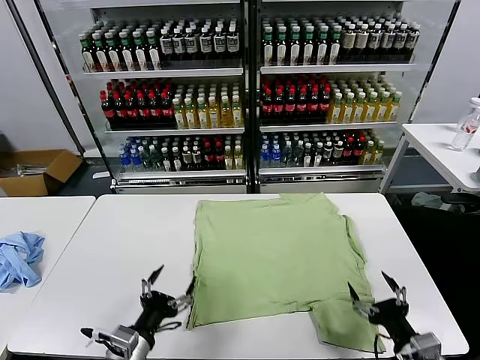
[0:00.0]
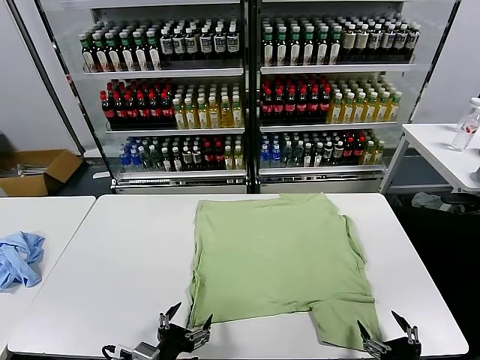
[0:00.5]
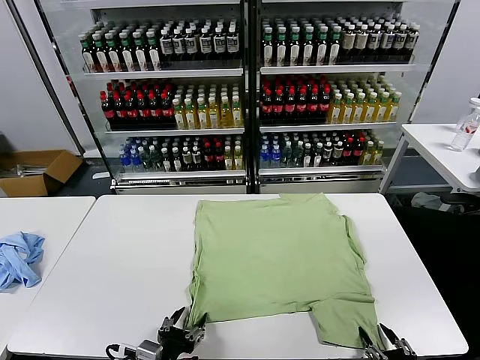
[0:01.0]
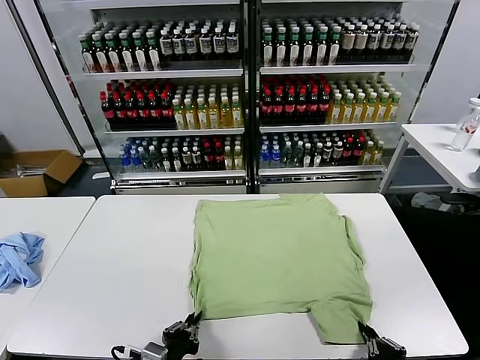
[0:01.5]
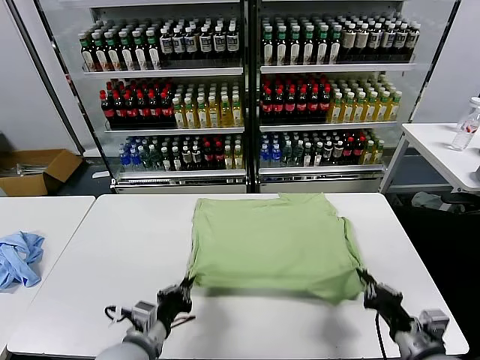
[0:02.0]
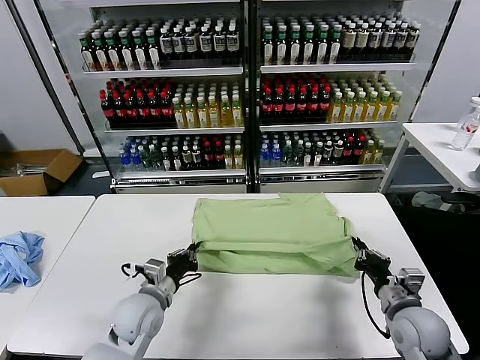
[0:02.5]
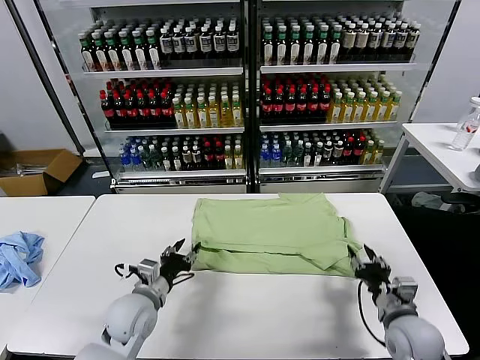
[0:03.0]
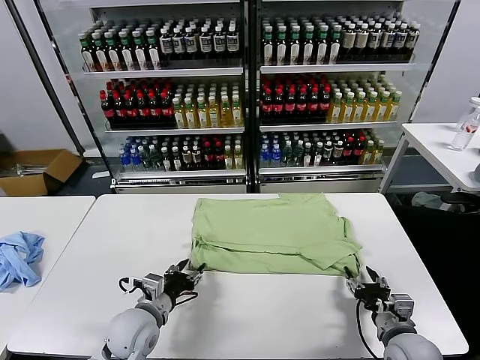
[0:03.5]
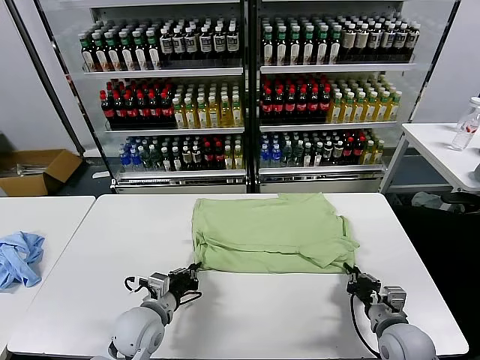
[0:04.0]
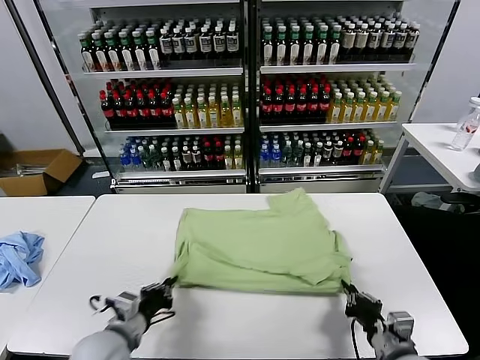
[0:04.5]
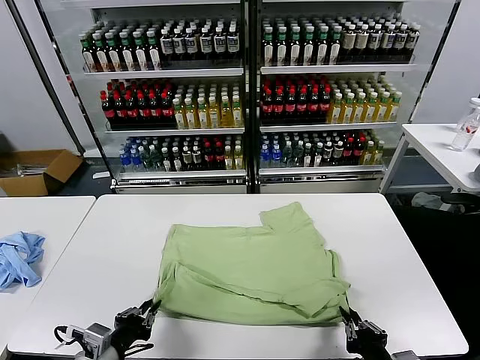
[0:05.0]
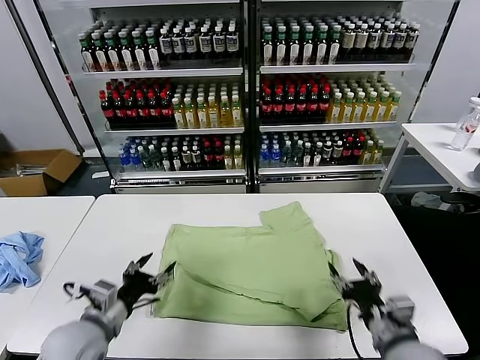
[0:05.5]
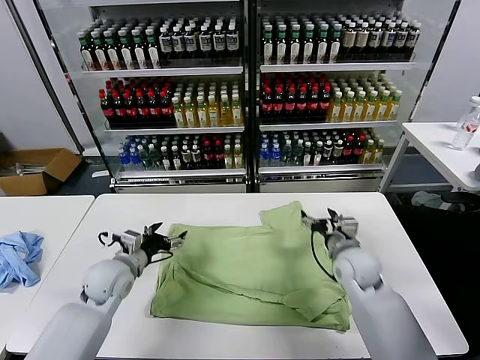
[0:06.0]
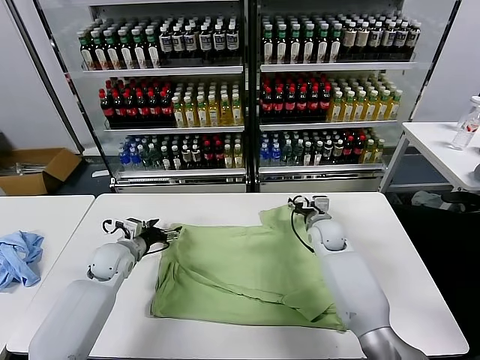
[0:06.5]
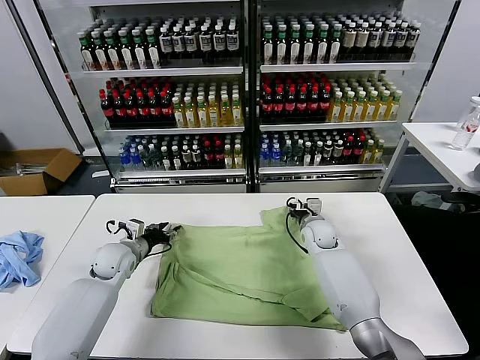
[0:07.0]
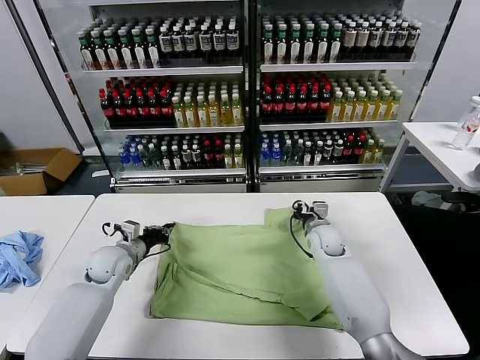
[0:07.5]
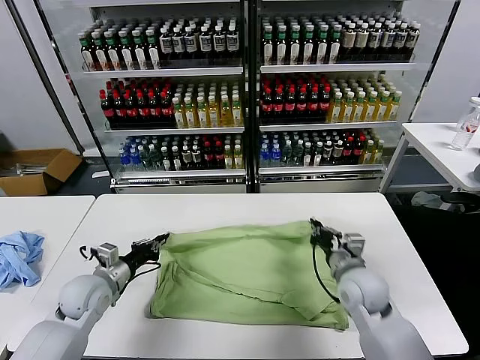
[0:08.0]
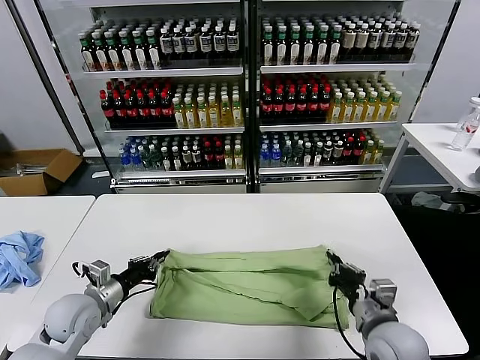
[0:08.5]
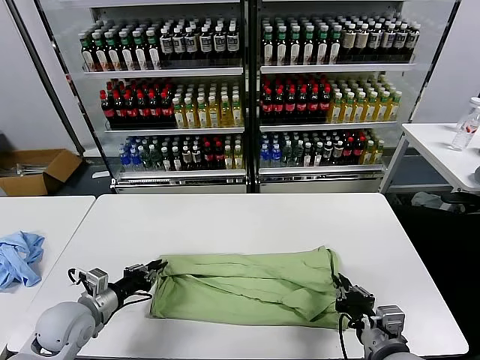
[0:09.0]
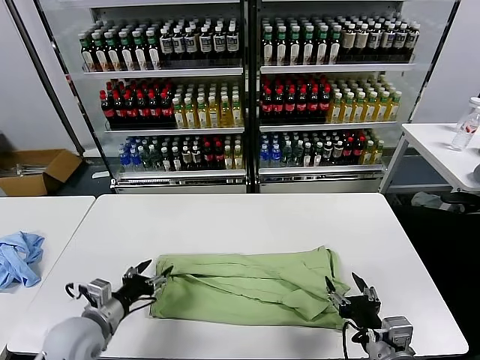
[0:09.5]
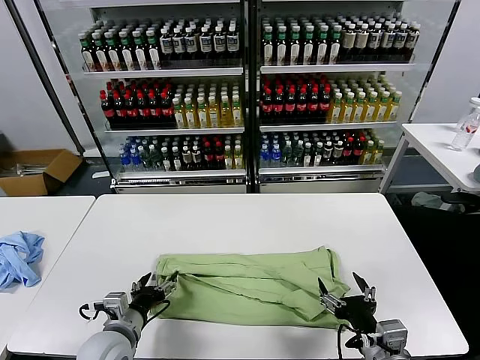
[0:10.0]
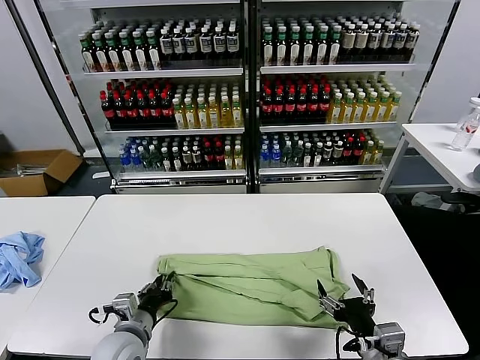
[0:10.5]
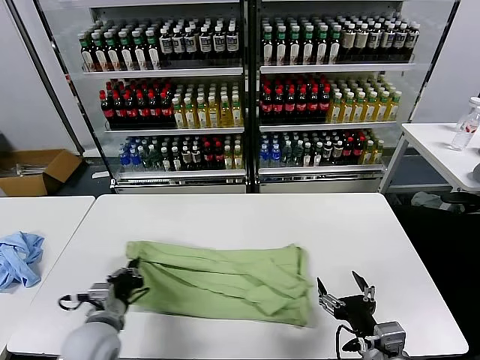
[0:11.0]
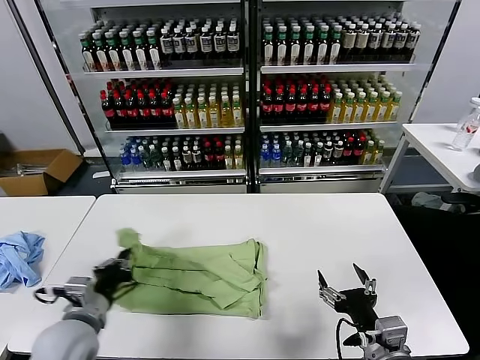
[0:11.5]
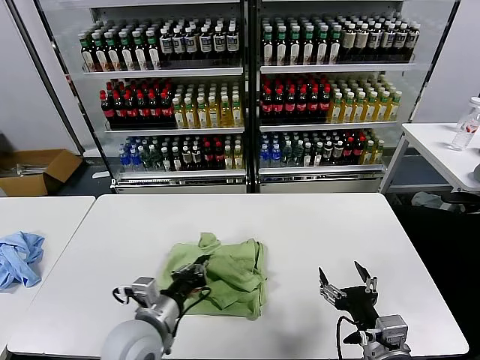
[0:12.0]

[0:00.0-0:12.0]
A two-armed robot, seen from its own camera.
Task of the whole recording: fold and organize the clothes.
Step, 0:00.0 to 0:01.5: use both grippers simultaneously to clamp the lower edge of the clothing fabric.
Step, 0:02.0 to 0:02.5: use both grippers to drag the lower edge of the fabric forward and fold it over the upper edge.
Step, 0:03.0 to 0:05.0: Drag the clothes downward with both gripper.
Step, 0:05.5 to 0:07.0: use both grippers simultaneously to clamp the upper edge of the clothing fabric.
Step, 0:07.5 to 0:09.0: use both grippers to drag the upper edge of the fabric backward and fold it over the lower edge.
Step, 0:09.5 to 0:10.5: use the left gripper to clamp the left edge of the fabric.
0:02.0 to 0:04.0: The left gripper shifts about 5 cm forward, and opens, then closes once more. The right gripper travels downward by approximately 5 cm, and opens, then closes again.
0:04.0 to 0:06.0: The right gripper goes approximately 20 cm forward and to the left, and opens its fingers. The left gripper moves forward and to the left, approximately 15 cm, and opens up.
0:06.0 to 0:08.0: The left gripper moves approximately 5 cm, and closes its fingers, while the right gripper heads backward, covering roughly 15 cm, and closes its fingers.
0:08.0 to 0:10.0: The right gripper moves backward, some 15 cm, and opens its fingers; the left gripper moves backward and to the right, some 15 cm, and opens.
0:10.0 to 0:12.0: The left gripper moves to the right and upward, some 10 cm, and closes its fingers.

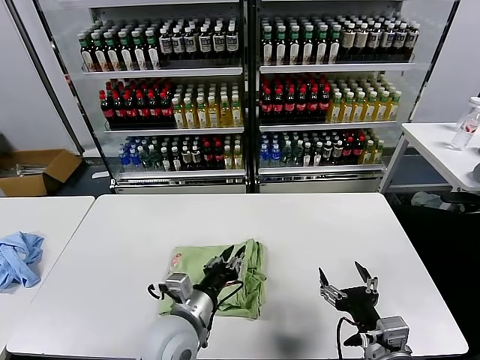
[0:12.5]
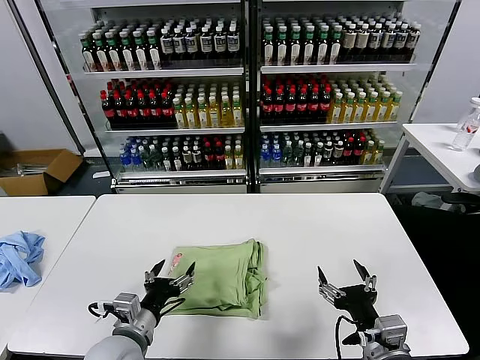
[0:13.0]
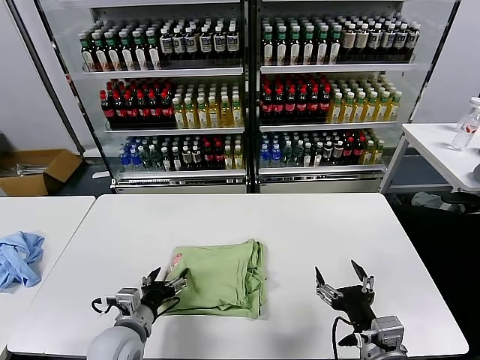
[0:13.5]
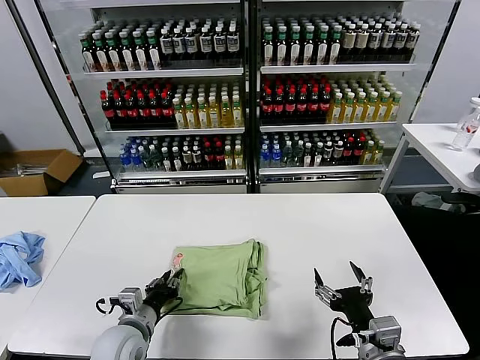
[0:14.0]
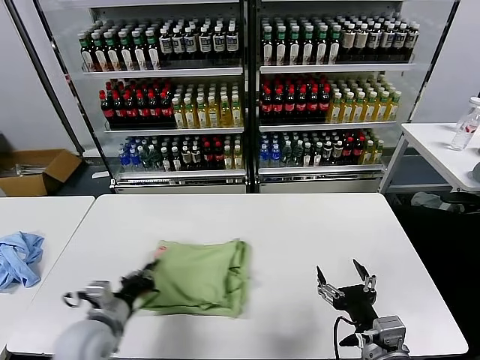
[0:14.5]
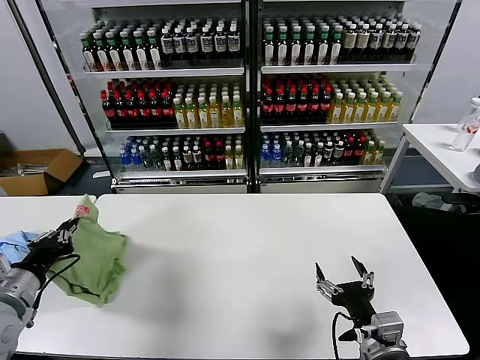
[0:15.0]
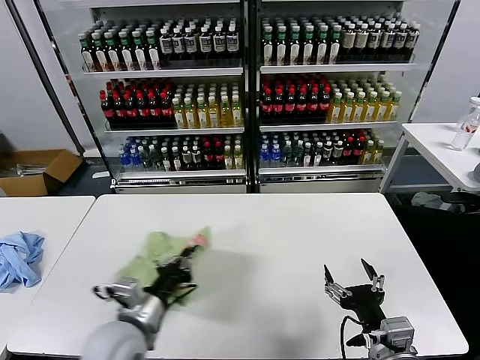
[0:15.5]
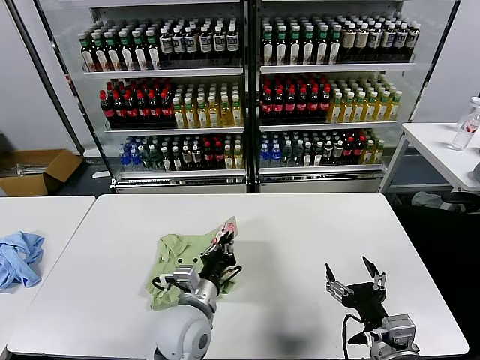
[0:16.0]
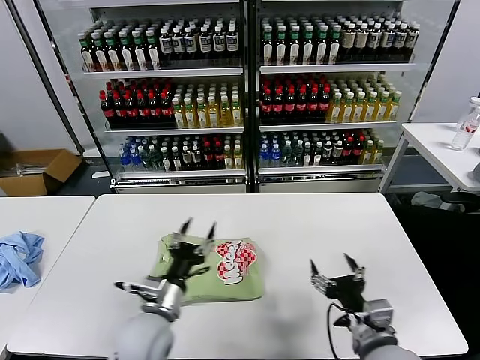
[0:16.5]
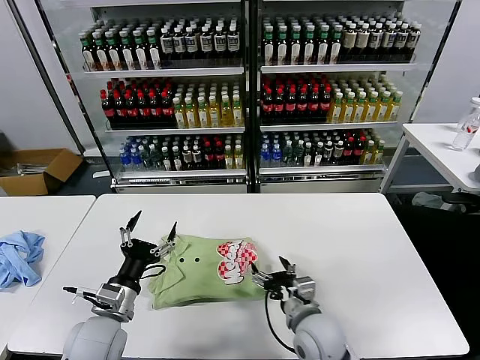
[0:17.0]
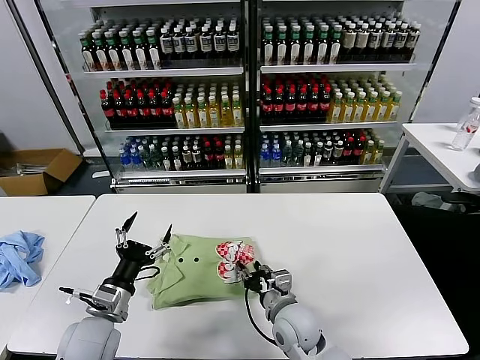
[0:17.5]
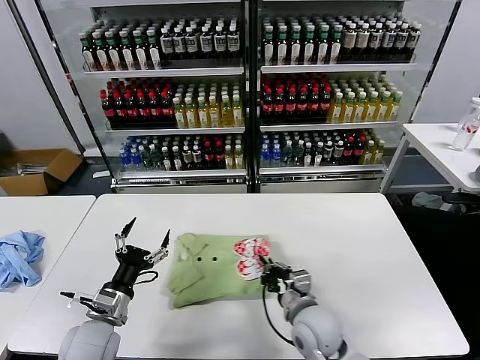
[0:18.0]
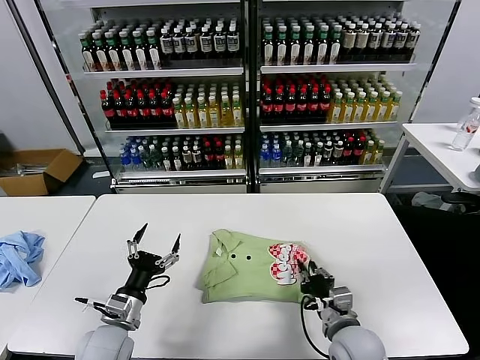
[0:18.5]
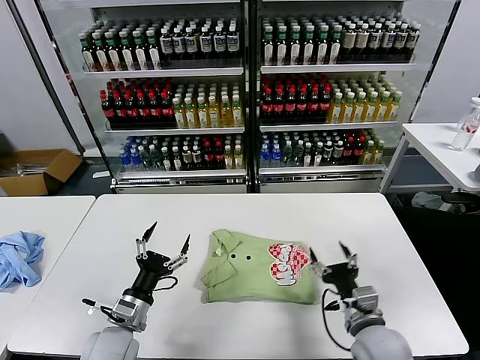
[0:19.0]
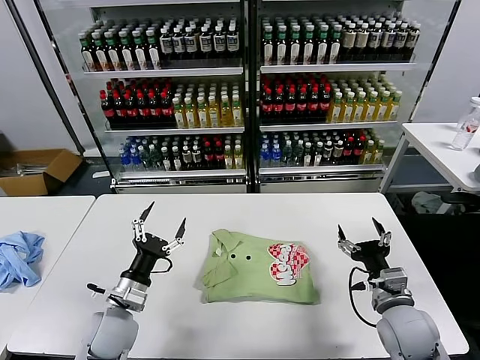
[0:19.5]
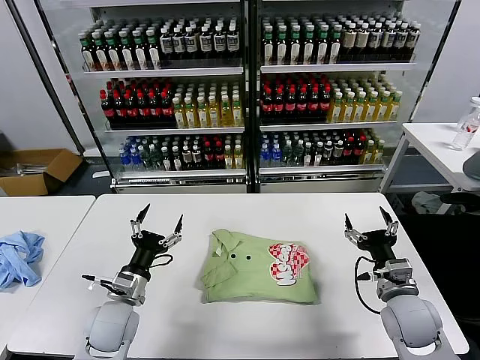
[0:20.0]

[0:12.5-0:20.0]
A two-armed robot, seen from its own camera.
Task of the whole recording: fold and organize the clothes.
Step, 0:13.0 to 0:16.0: Flip the folded clothes over with left gripper.
Step, 0:16.5 to 0:18.5: Drag the clothes to the center of the table.
0:12.5 to 0:14.5: The left gripper goes roughly 15 cm to the left, and closes its fingers.
0:14.5 to 0:16.5: The left gripper swings left and right, roughly 30 cm each way, with 2 reversals, and opens.
0:16.5 to 0:18.0: The left gripper moves to the left, about 10 cm, while the right gripper is displaced to the left, forward and downward by some 15 cm, and closes its fingers.
0:18.0 to 0:20.0: The right gripper goes about 20 cm to the right, and opens up.
